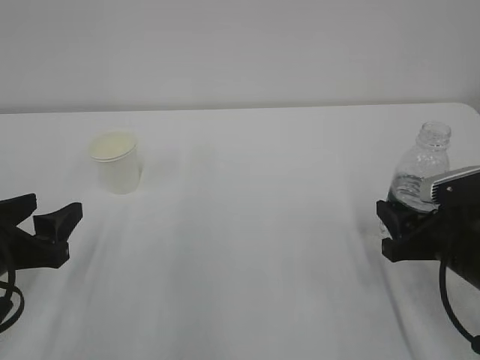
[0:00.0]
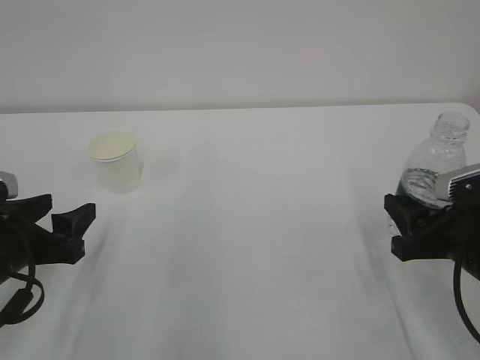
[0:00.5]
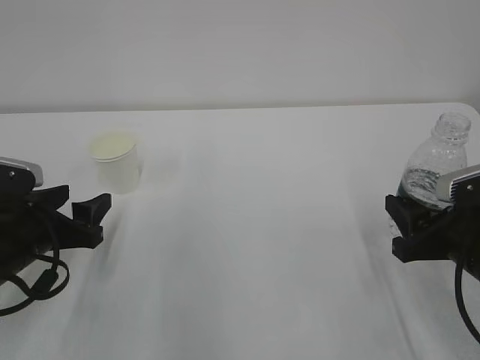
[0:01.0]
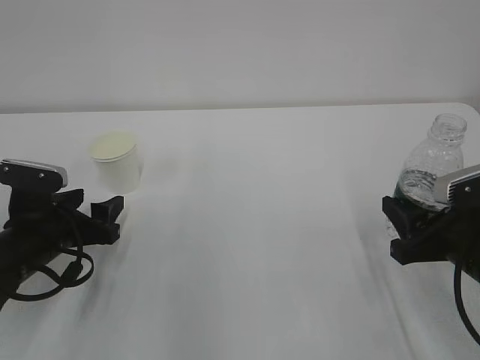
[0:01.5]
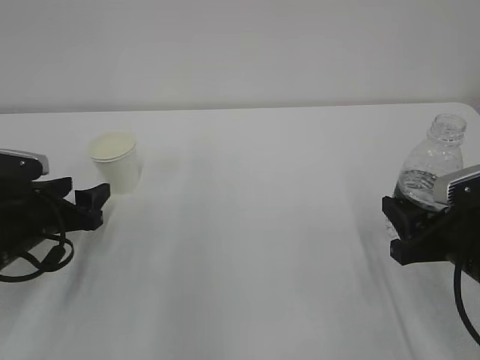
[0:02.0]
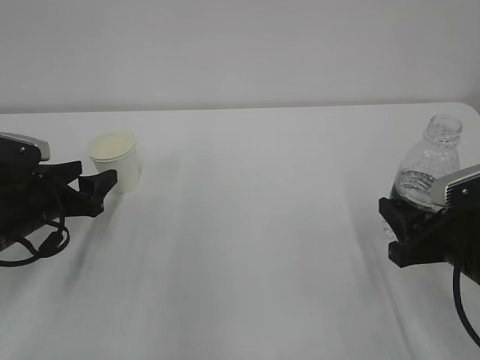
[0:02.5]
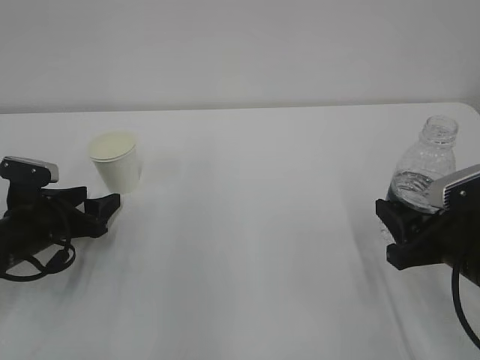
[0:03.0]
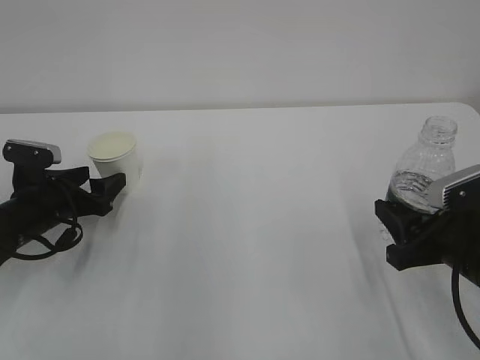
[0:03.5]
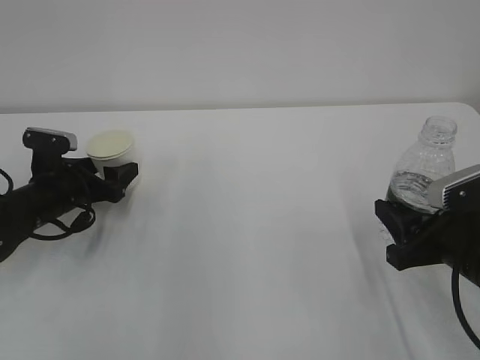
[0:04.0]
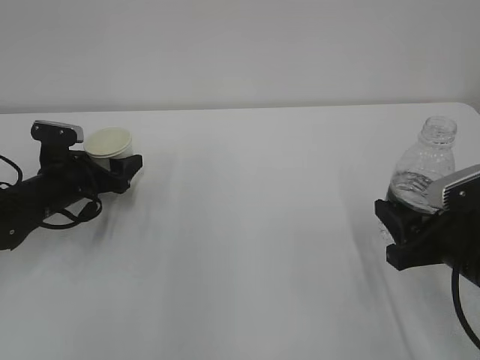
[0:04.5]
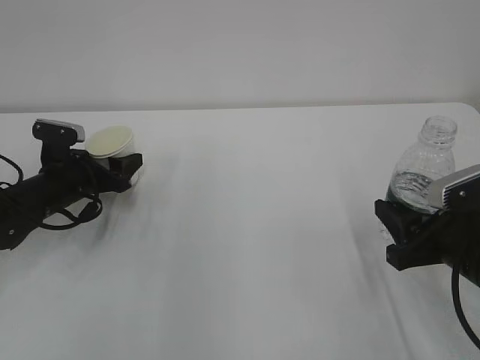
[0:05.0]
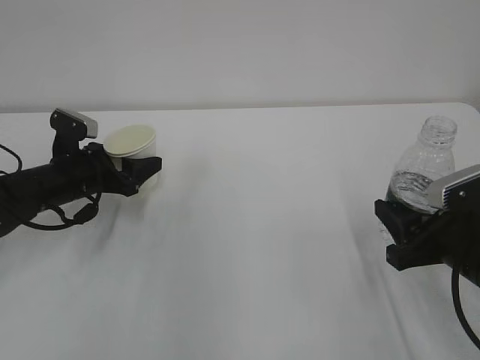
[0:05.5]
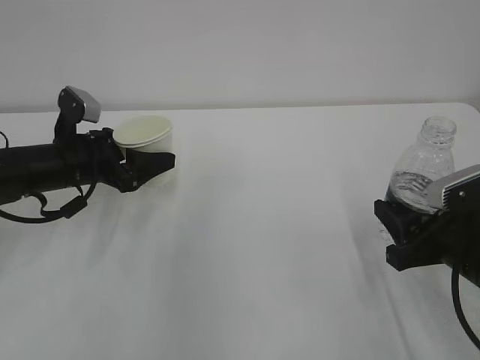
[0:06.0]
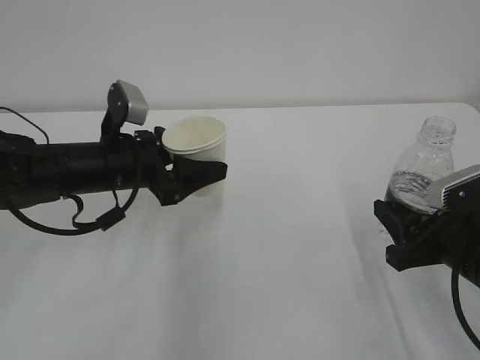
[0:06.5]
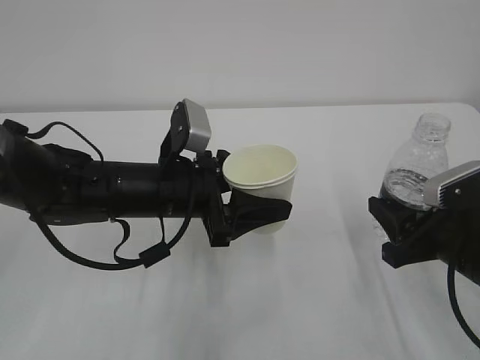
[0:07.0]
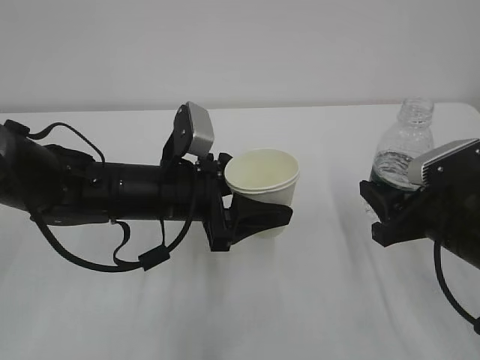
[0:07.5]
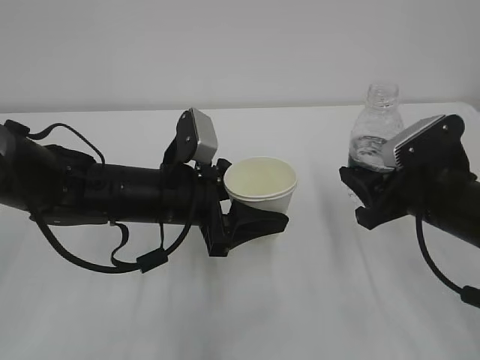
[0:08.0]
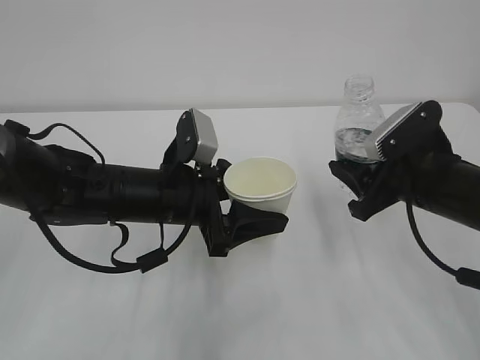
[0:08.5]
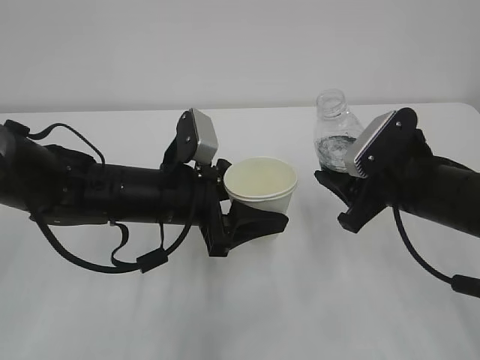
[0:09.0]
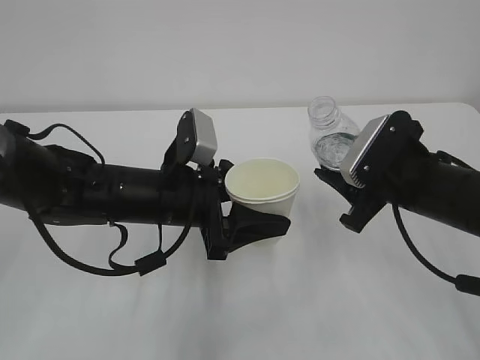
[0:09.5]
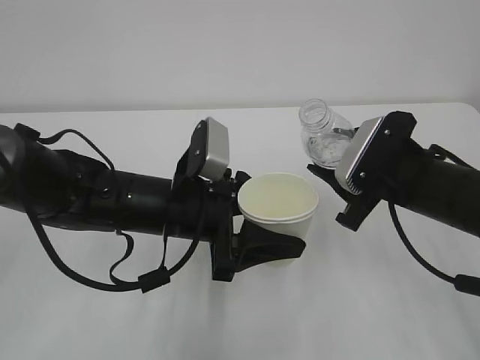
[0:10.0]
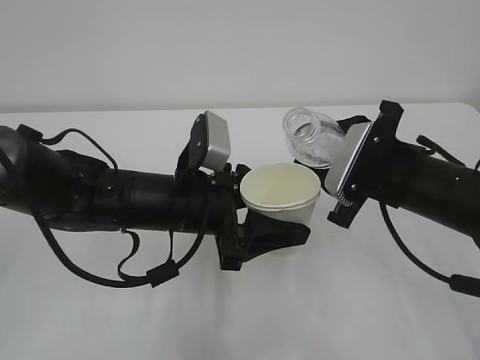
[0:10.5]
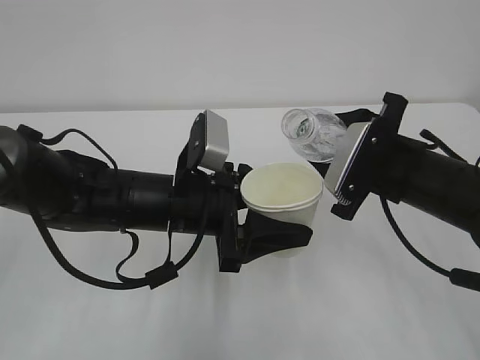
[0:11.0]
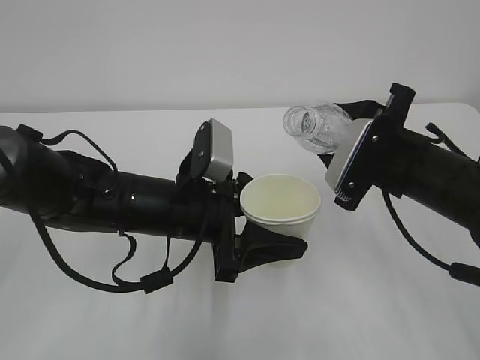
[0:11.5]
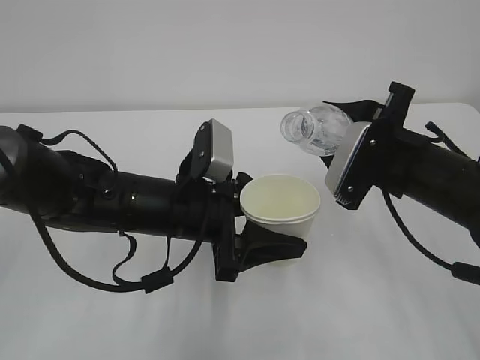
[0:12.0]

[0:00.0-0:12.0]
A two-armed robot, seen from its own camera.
0:00.0 to 0:02.0: The left gripper moves forward, approximately 10 cm.
0:02.0 to 0:04.0: The left gripper goes approximately 5 cm forward.
0:04.0 to 0:06.0: The left gripper goes about 5 cm upward, and closes its fingers.
0:06.0 to 0:08.0: The right gripper moves forward, approximately 5 cm. Meanwhile the left gripper goes about 15 cm to the right and backward.

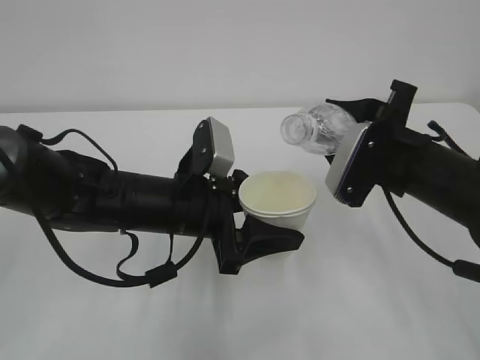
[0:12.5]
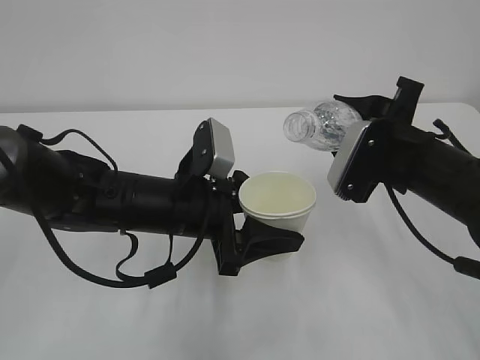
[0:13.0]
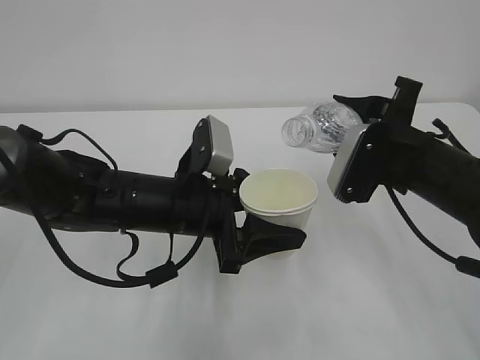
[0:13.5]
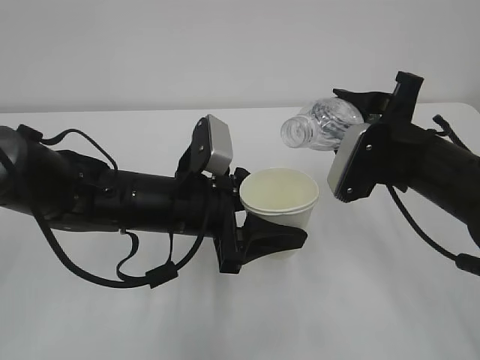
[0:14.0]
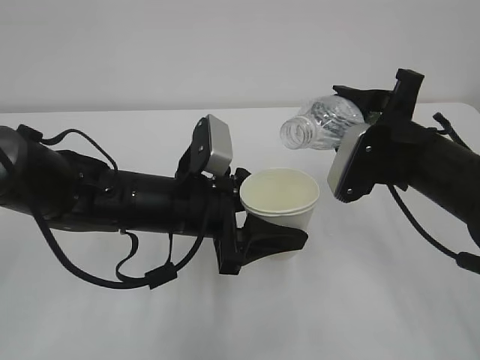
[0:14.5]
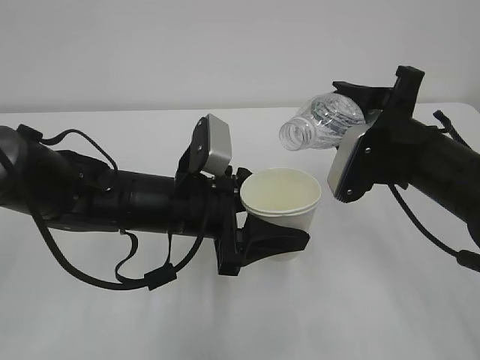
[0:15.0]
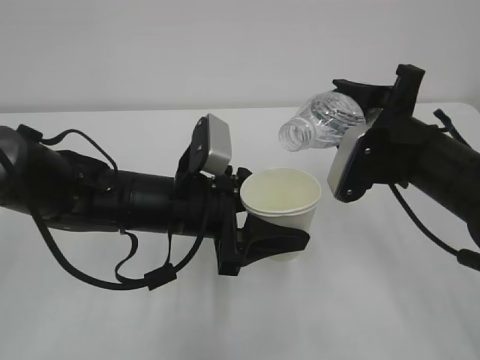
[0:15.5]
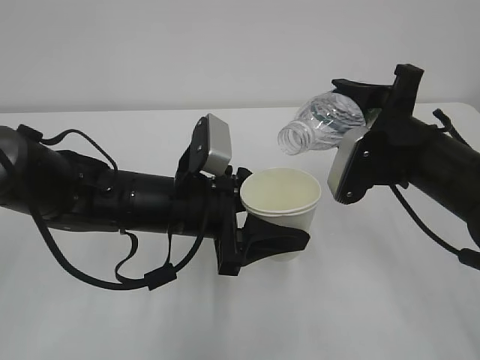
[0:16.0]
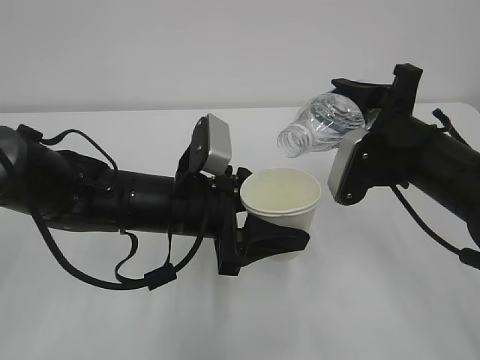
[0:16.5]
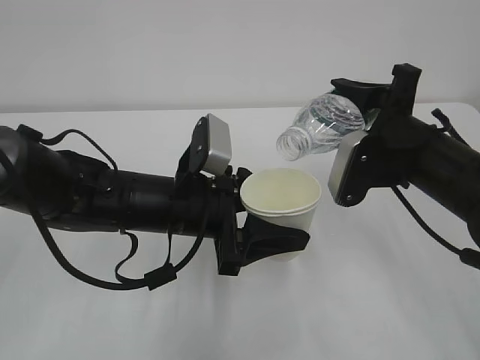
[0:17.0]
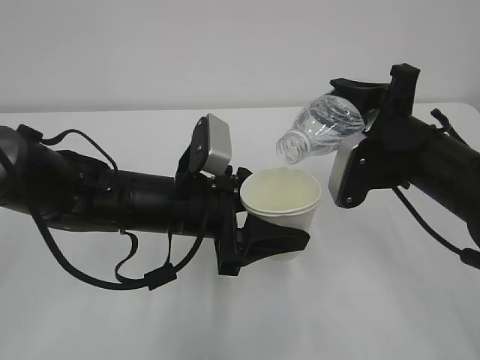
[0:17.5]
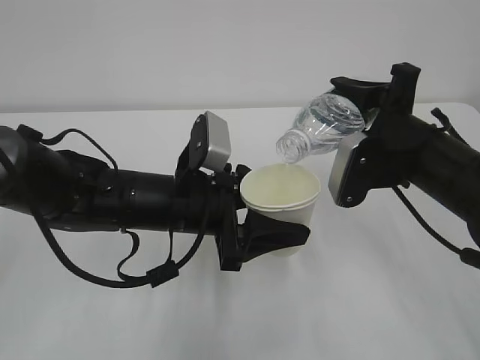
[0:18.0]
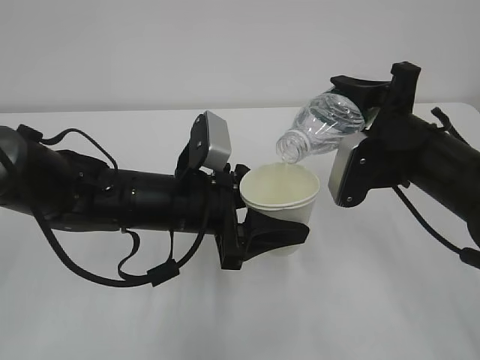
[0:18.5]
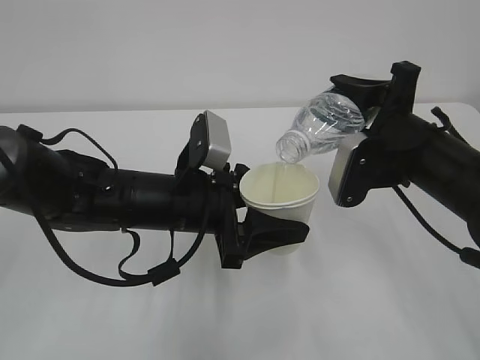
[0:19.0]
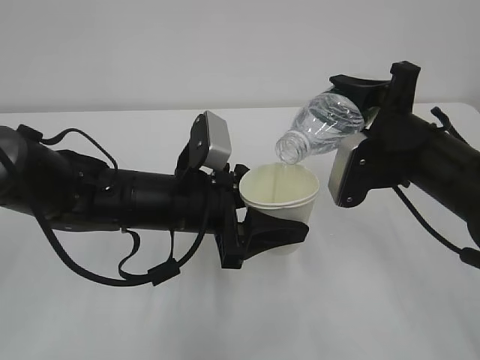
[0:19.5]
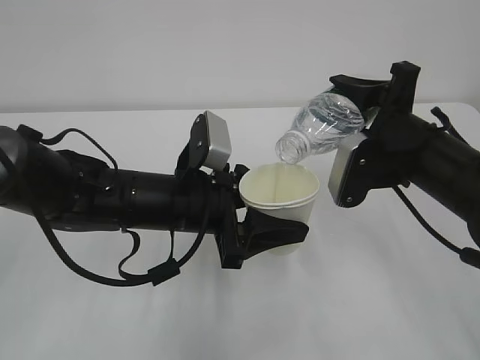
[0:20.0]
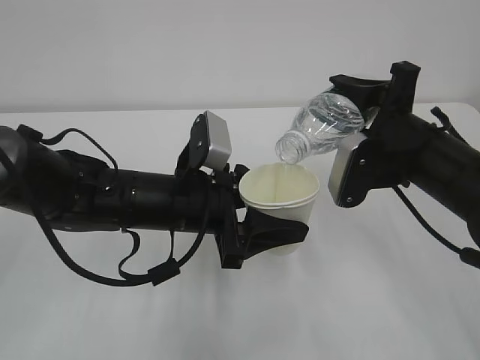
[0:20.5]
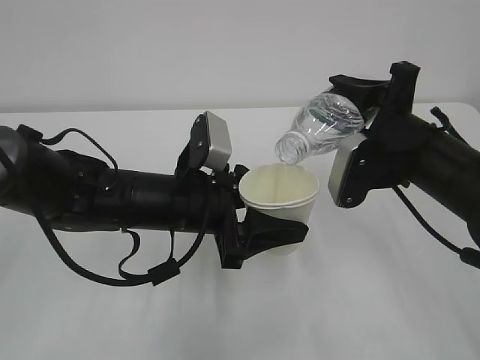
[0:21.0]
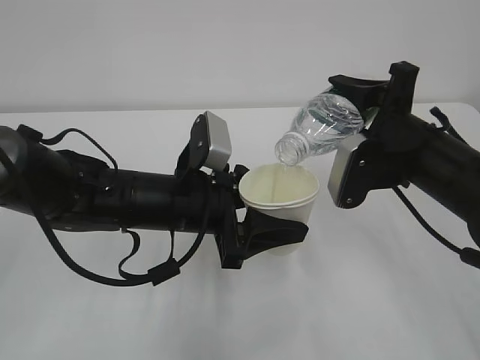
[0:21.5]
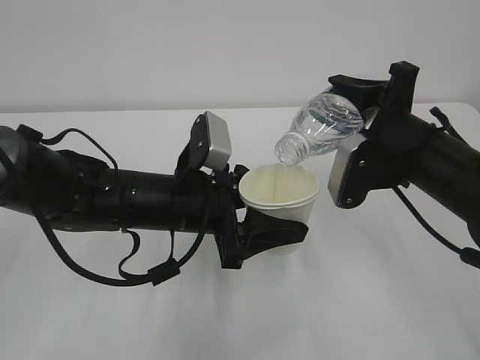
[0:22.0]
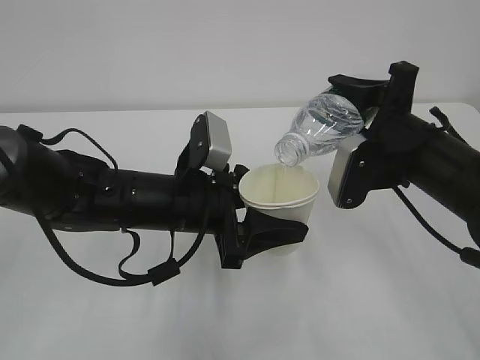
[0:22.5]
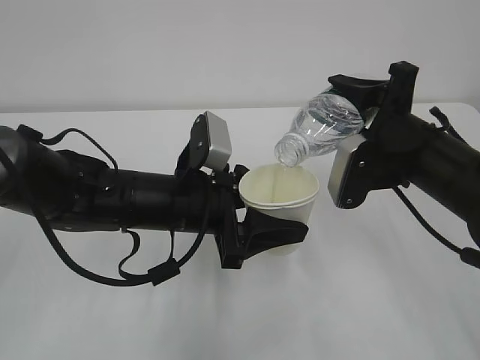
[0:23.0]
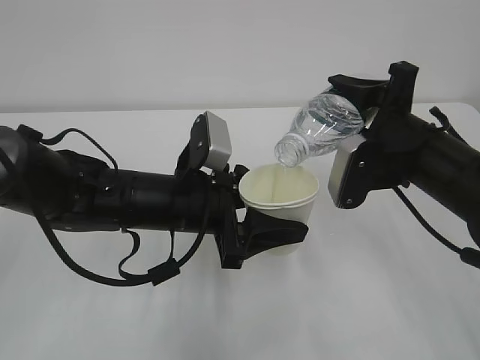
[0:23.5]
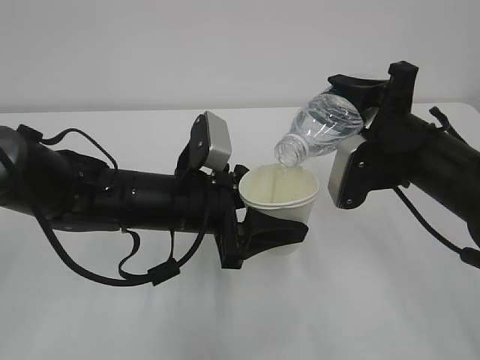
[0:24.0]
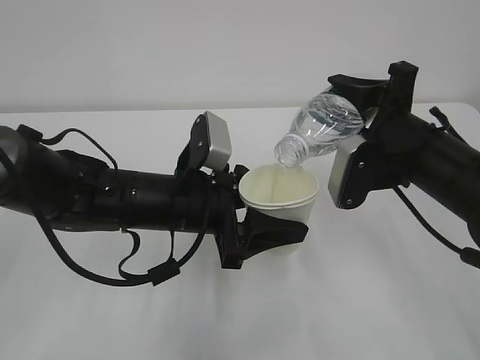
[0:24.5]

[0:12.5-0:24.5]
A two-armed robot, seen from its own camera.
0:12.5 to 0:16.5: The grippers make only small movements.
0:16.5 to 0:18.5: Neither gripper changes place.
0:18.5 to 0:24.5: The two grippers keep their place.

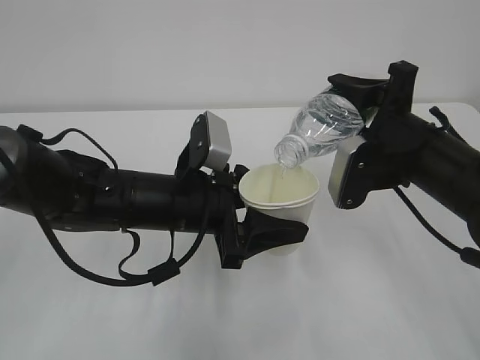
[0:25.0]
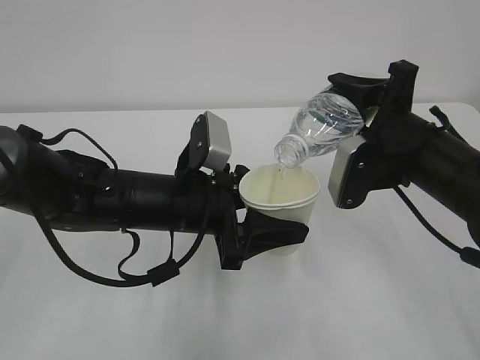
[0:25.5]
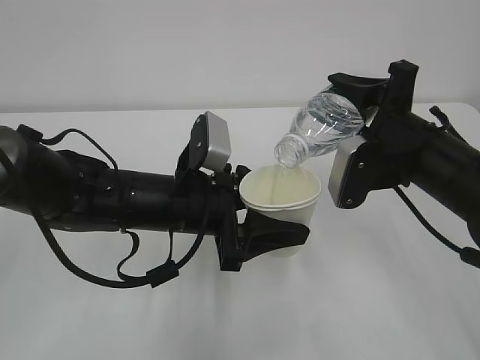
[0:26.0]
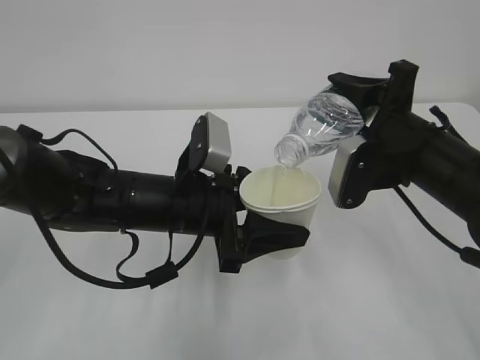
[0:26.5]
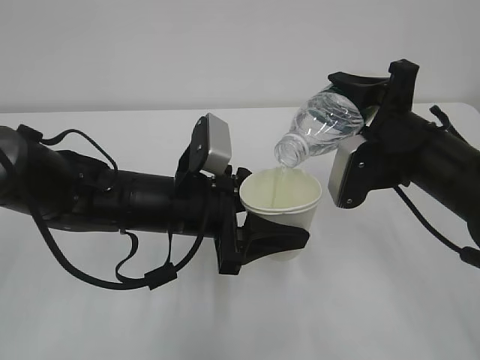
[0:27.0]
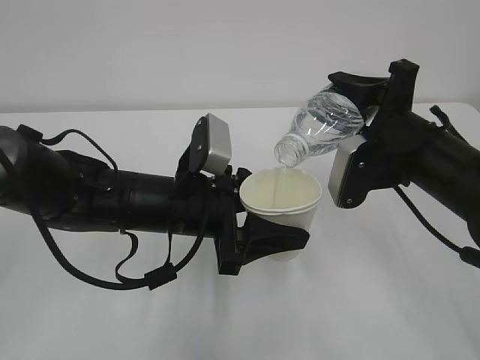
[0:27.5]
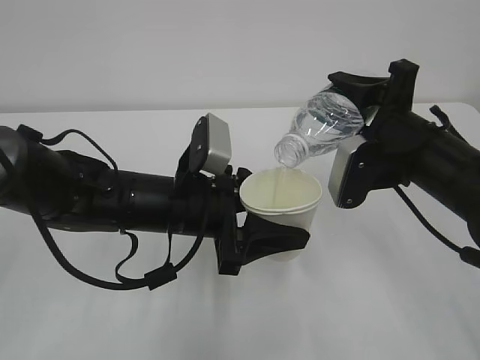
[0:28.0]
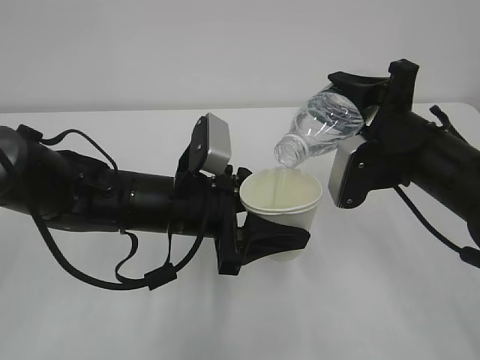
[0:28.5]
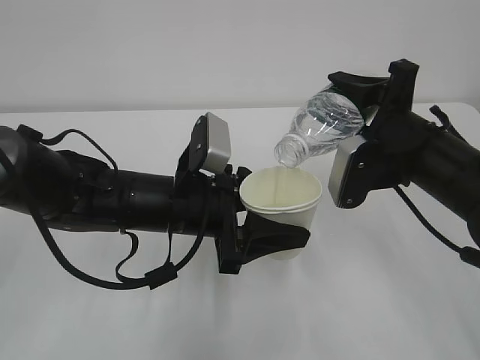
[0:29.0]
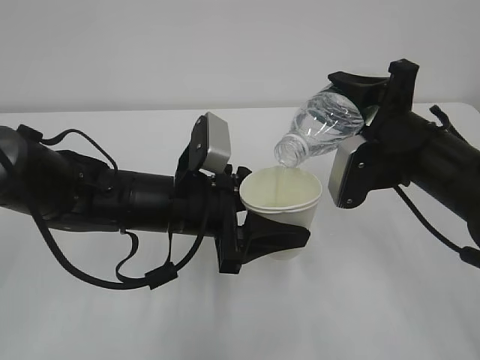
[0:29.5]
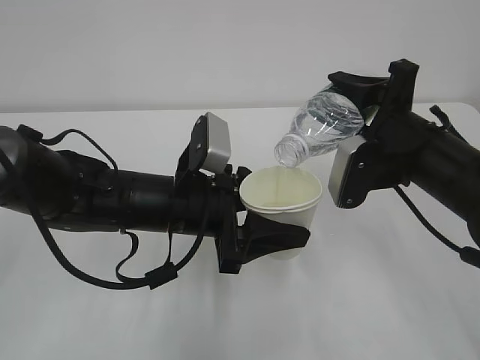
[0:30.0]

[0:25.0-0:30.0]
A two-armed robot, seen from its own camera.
0:25.0 to 0:30.0: Both grippers stay put.
